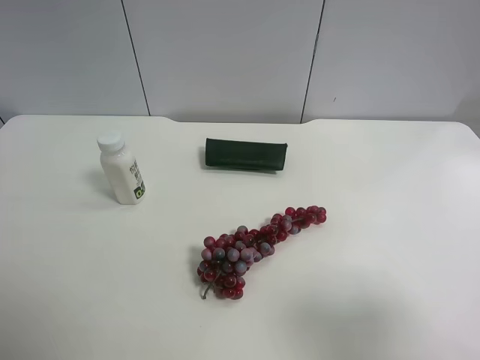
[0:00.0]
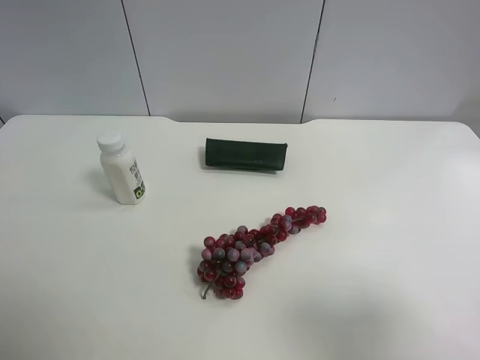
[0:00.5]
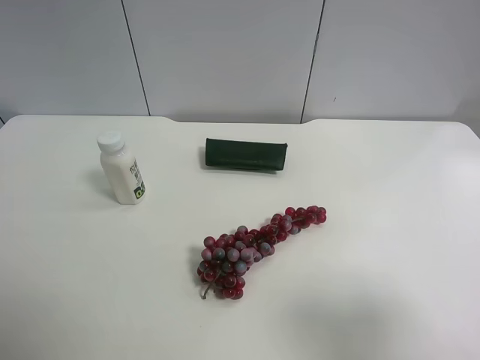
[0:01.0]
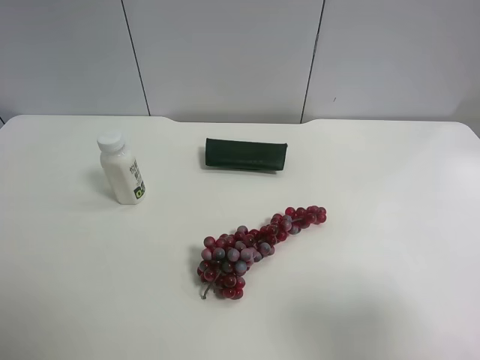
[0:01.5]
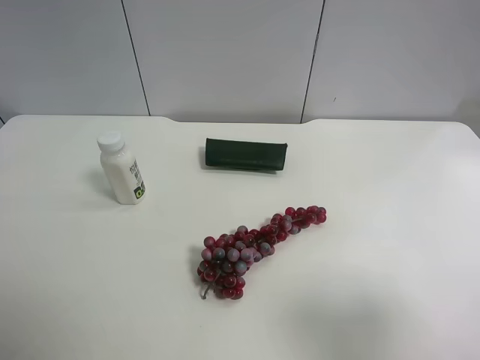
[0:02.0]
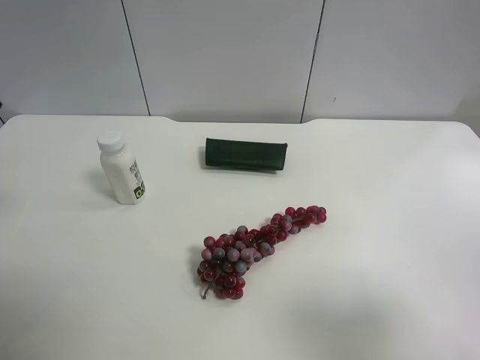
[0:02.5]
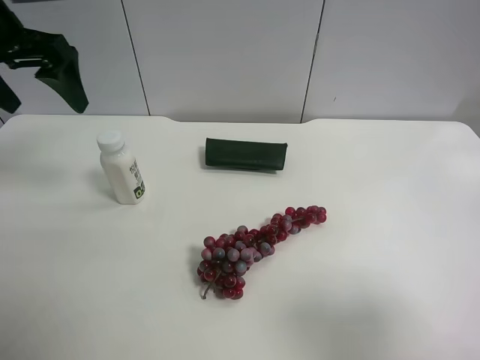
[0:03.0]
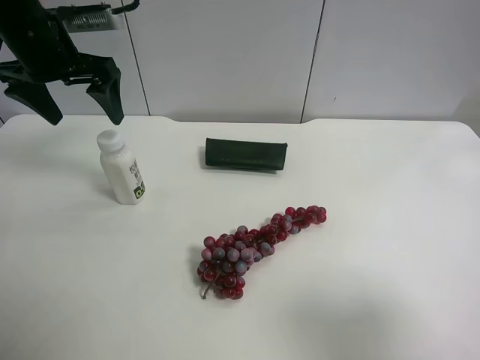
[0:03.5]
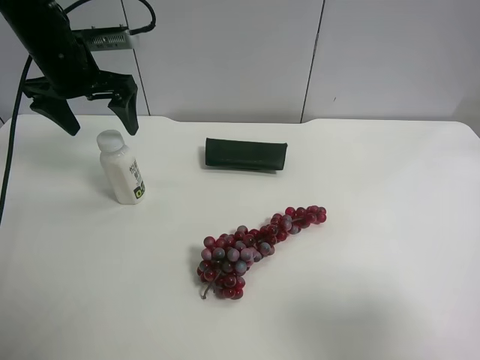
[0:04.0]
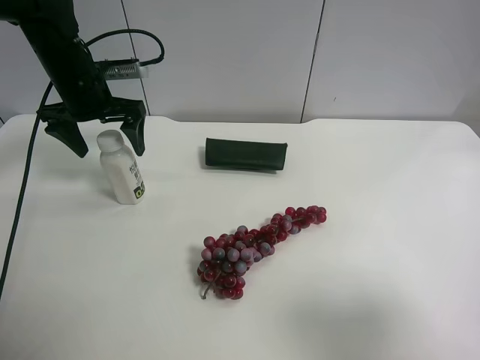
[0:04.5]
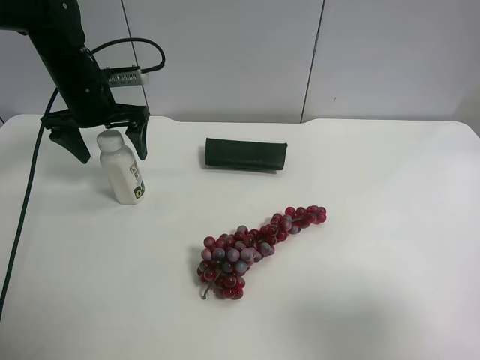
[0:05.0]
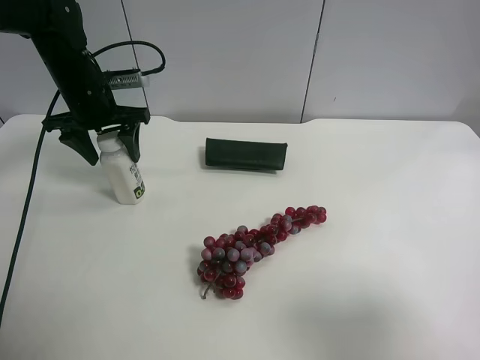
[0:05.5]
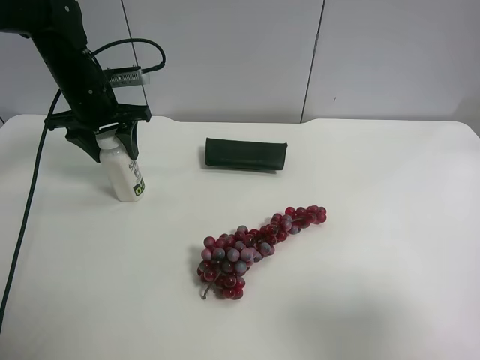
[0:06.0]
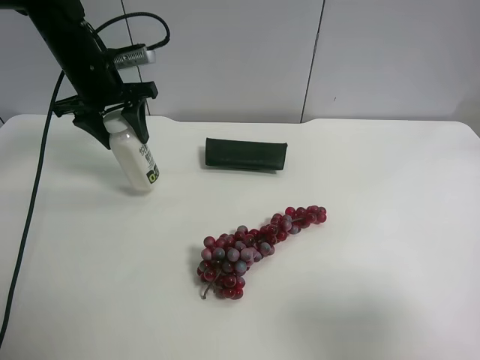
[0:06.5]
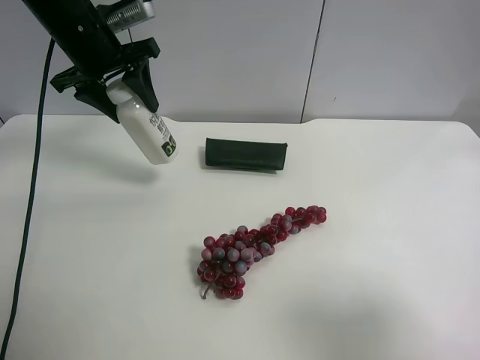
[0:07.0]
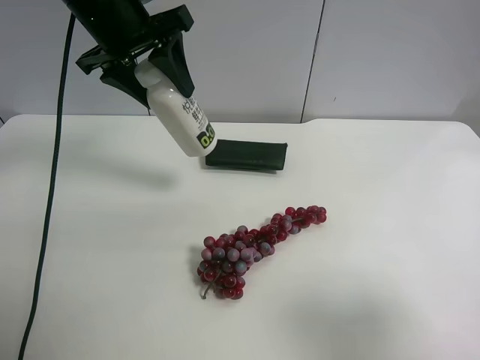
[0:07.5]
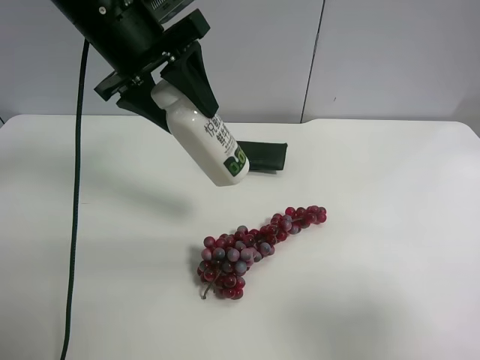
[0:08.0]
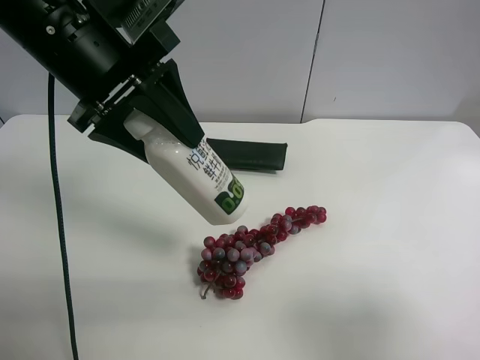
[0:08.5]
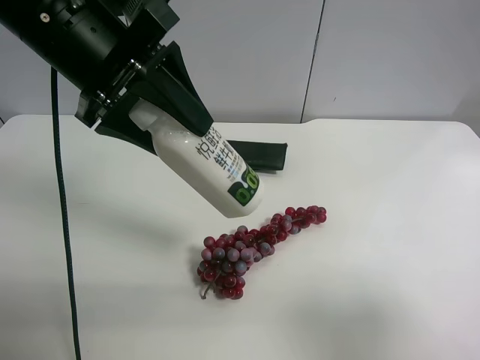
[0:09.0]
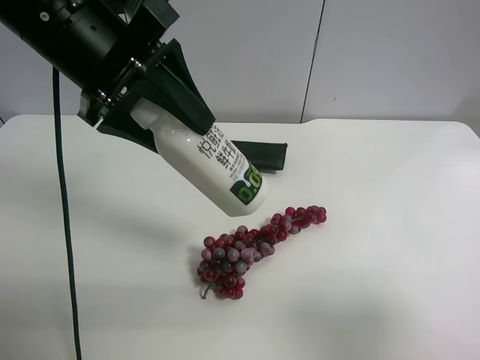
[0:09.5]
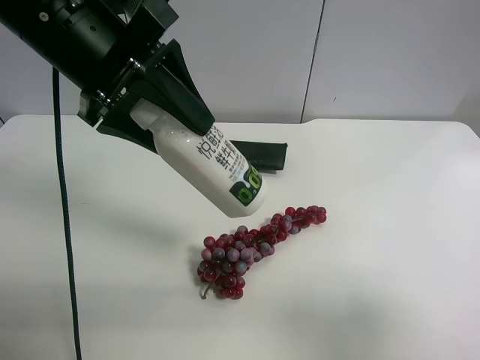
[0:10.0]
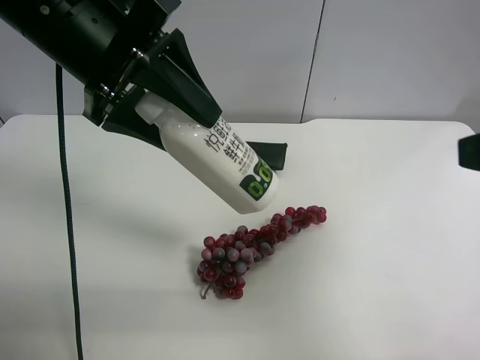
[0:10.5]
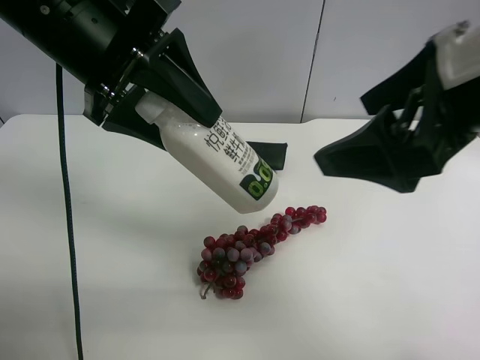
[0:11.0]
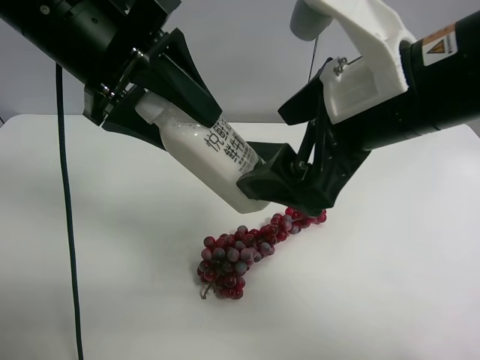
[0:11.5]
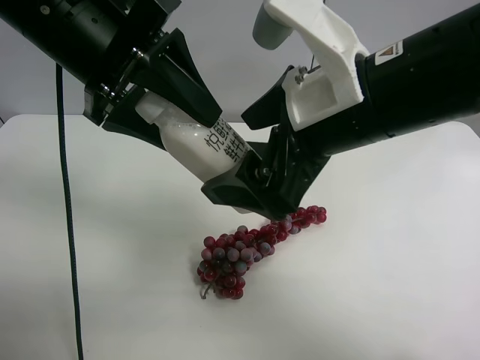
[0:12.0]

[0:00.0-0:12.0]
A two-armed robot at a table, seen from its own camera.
Task of the whole recording: use the left gripper to pick up the item and transfer it from the left gripper to the right gripper.
0:02.0 to 0:04.0: The left gripper shifts approximately 35 cm forward.
0:04.0 to 0:06.0: The left gripper shifts roughly 5 cm downward, and closes up.
0:06.0 to 0:08.0: The left gripper is displaced upward, to the right and backward by about 20 cm.
0:08.0 to 0:10.0: The left gripper goes roughly 5 cm backward.
0:10.0 to 0:12.0: The right gripper is displaced to the left and forward by roughly 25 cm.

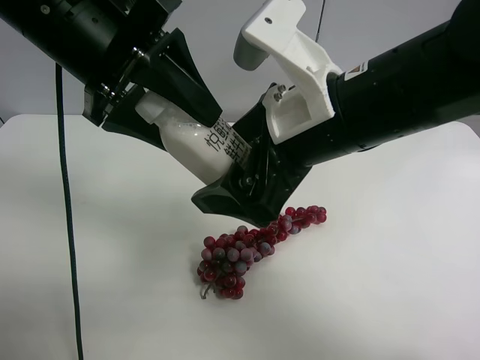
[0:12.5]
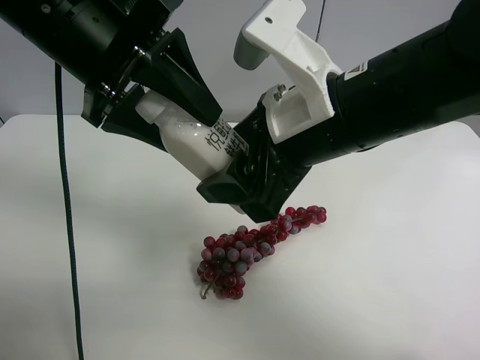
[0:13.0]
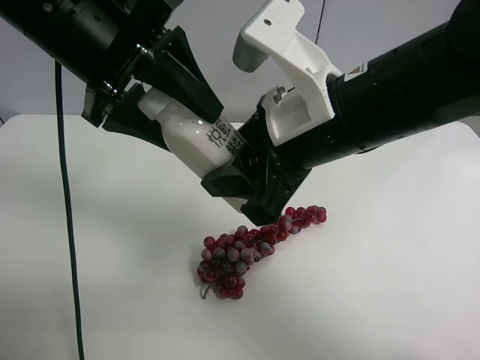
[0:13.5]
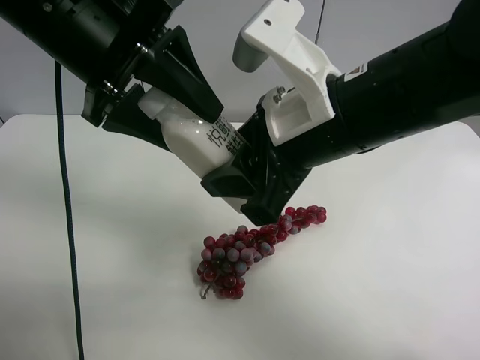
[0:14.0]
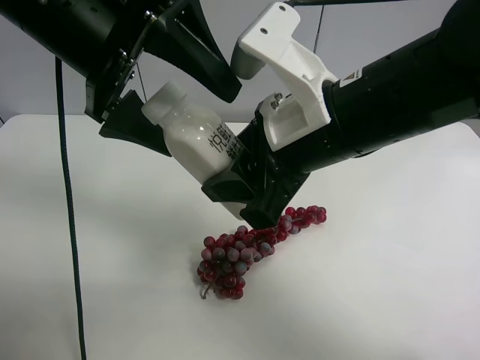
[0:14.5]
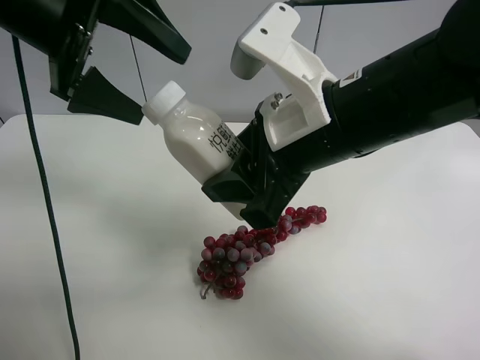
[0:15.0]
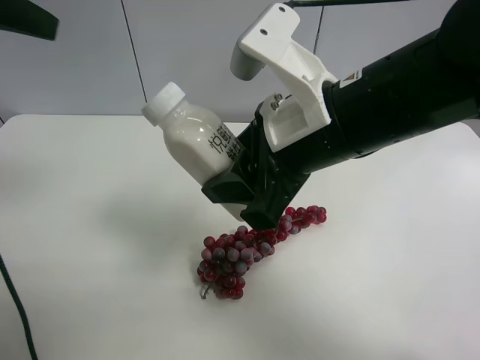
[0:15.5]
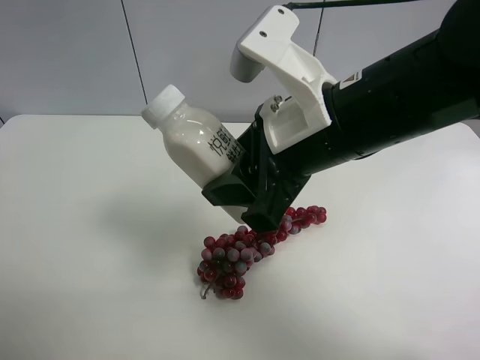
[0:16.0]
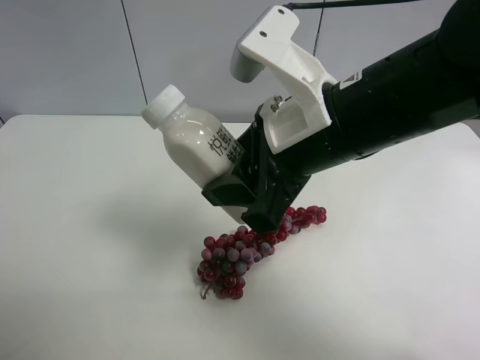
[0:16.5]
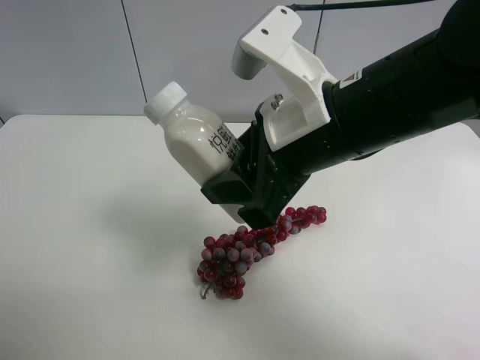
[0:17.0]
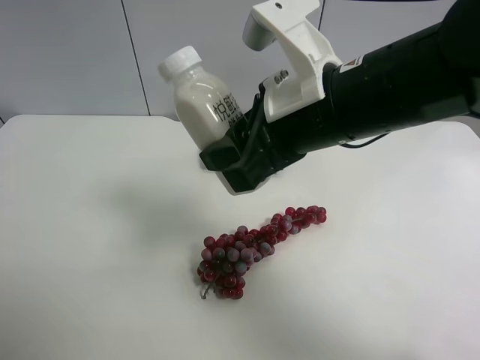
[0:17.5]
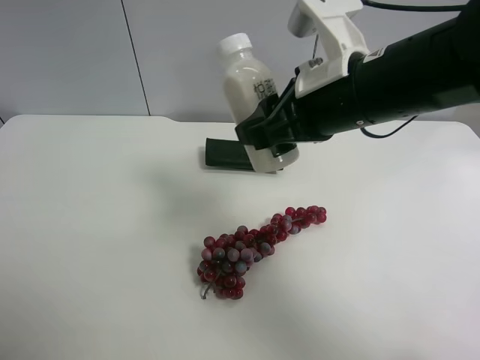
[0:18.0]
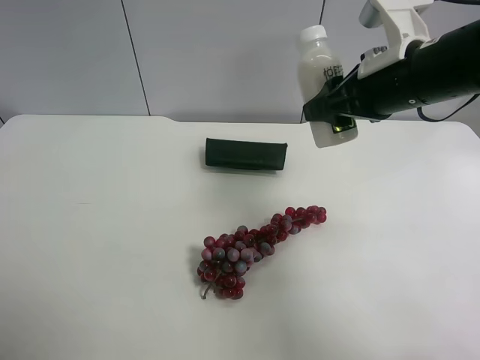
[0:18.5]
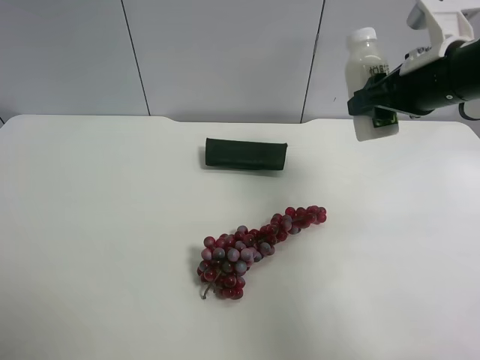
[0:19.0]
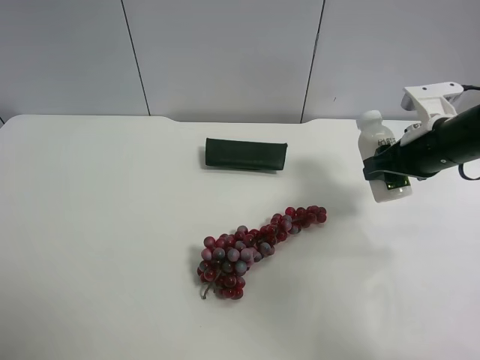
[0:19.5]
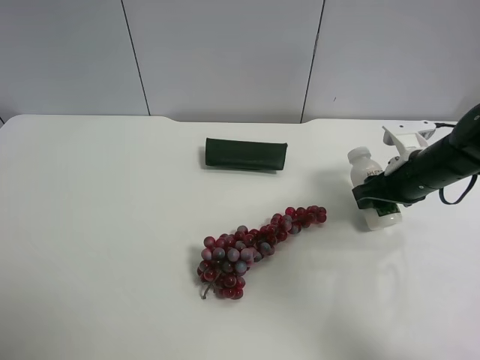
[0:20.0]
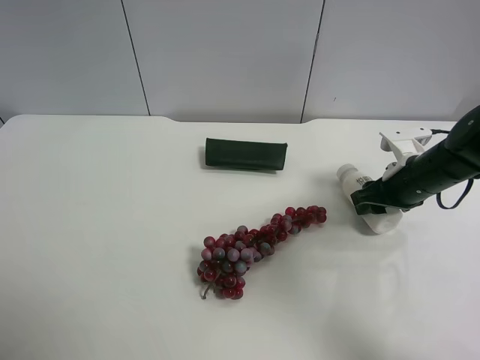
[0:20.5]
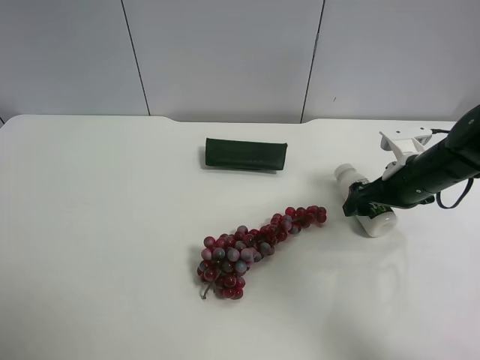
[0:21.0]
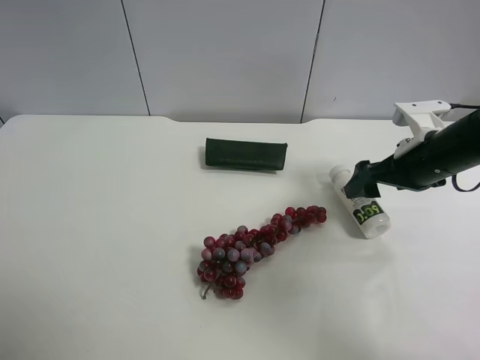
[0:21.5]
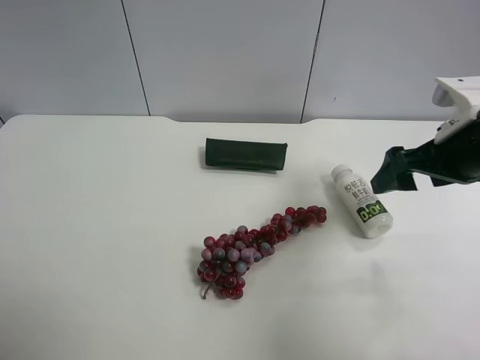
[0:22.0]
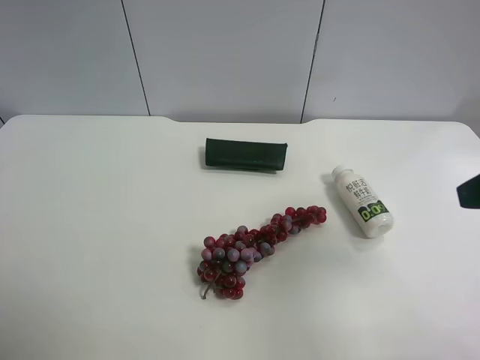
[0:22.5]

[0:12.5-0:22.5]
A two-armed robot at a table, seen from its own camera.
Task of the whole recording: use the left gripper to pick up the item and transfer it from the left gripper to the right gripper.
0:12.5 to 0:14.5: The right gripper closes. The left gripper opens its fingers.
0:14.5 to 0:16.5: The left gripper goes approximately 30 cm backward and to the left.
0:16.5 to 0:18.5: The right gripper heads to the right and forward, covering about 15 cm. Meanwhile the left gripper is displaced downward by roughly 5 cm.
0:18.5 to 0:20.5: The right gripper moves downward and to the right, approximately 20 cm.
0:20.5 to 0:22.5: The right gripper goes some 25 cm upward and backward, and opens.

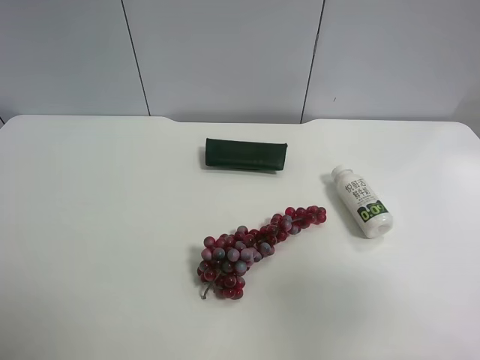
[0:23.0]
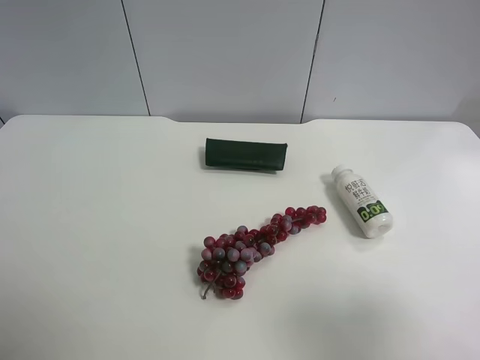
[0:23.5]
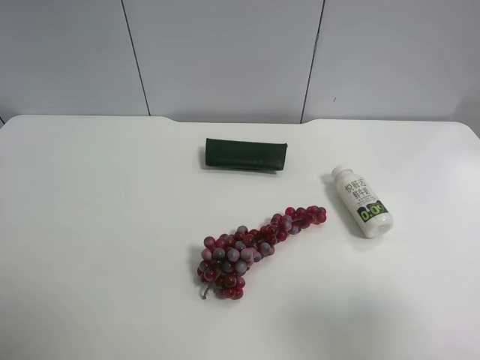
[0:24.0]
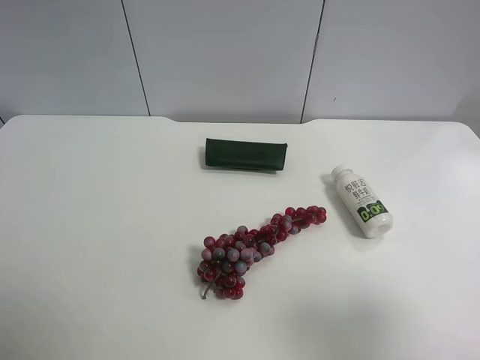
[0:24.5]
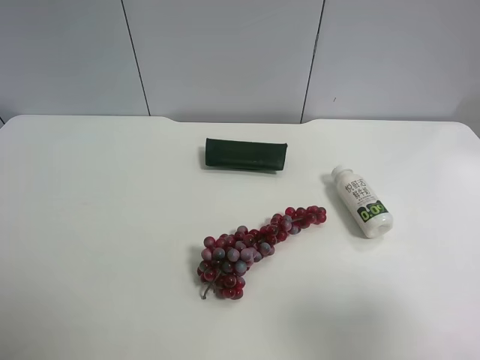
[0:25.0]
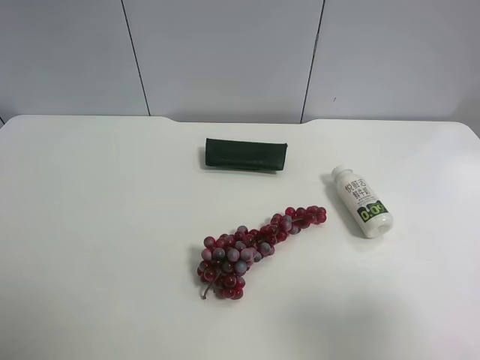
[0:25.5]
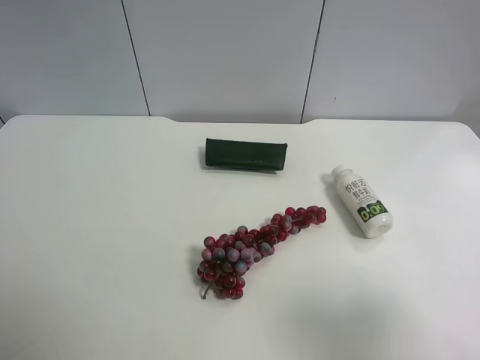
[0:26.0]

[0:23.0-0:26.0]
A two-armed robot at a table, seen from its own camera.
Task of the whole recording: use the left gripper to pick up the item and transfer it from the left gripper to the right gripper.
0:23.0 to 0:24.5: There are only small adjustments of the grippers.
